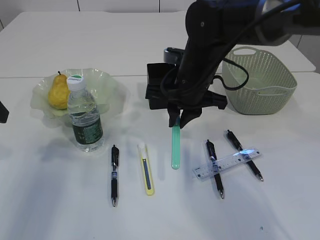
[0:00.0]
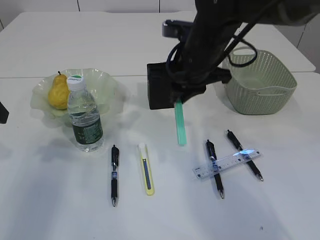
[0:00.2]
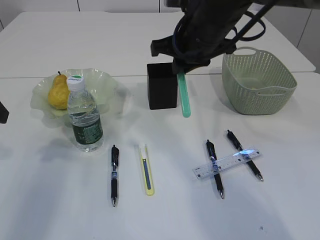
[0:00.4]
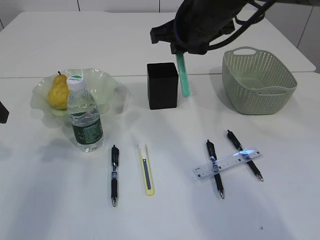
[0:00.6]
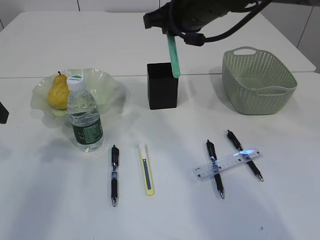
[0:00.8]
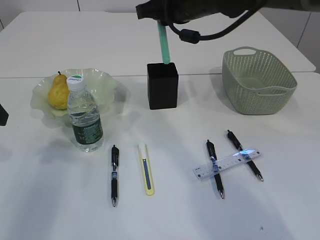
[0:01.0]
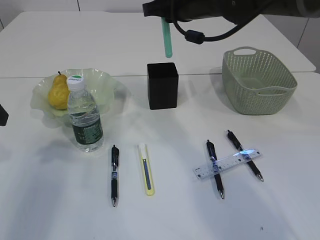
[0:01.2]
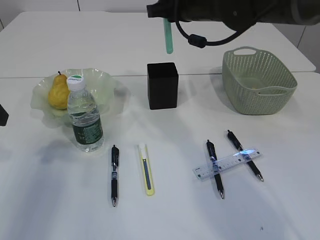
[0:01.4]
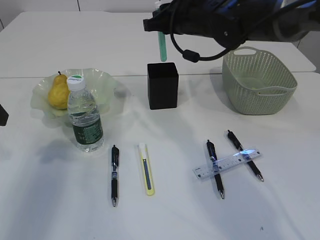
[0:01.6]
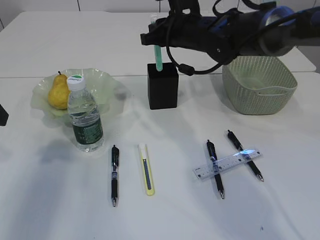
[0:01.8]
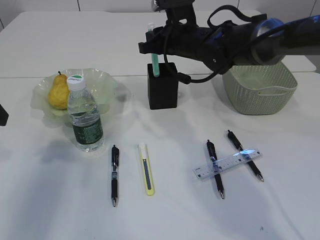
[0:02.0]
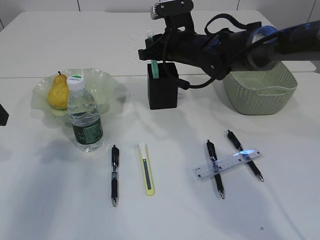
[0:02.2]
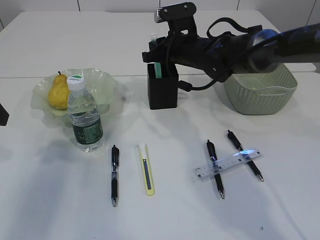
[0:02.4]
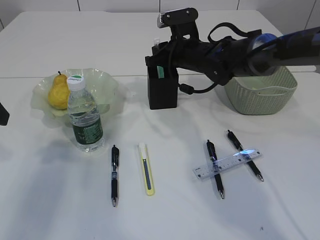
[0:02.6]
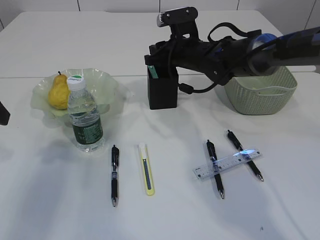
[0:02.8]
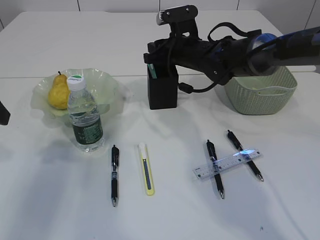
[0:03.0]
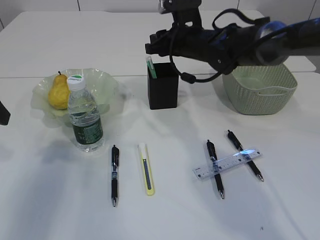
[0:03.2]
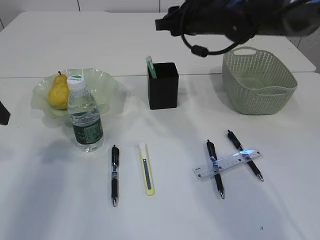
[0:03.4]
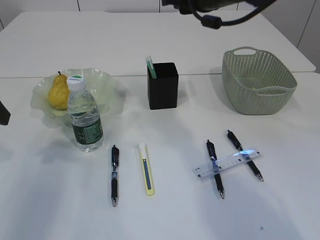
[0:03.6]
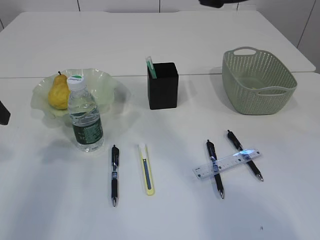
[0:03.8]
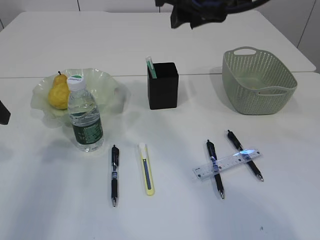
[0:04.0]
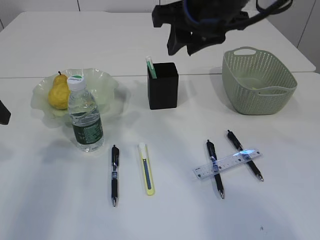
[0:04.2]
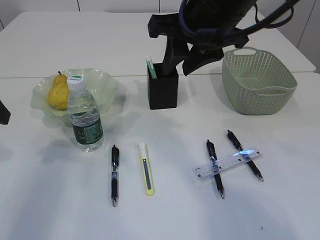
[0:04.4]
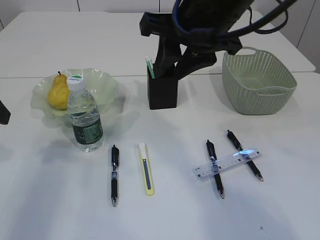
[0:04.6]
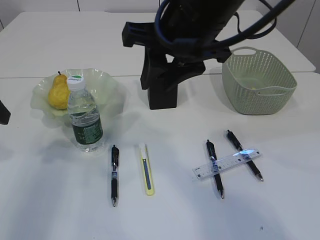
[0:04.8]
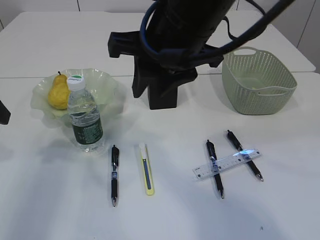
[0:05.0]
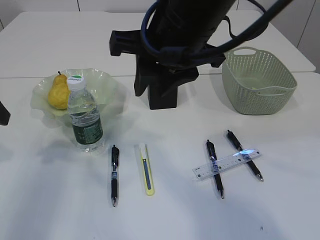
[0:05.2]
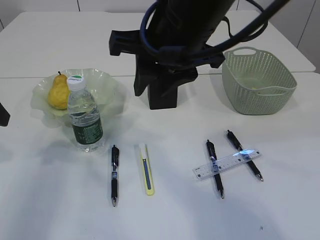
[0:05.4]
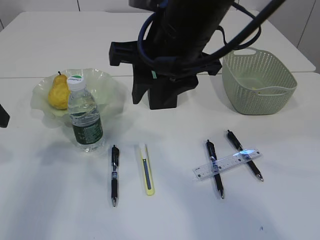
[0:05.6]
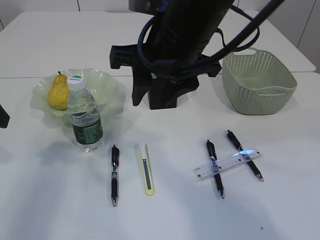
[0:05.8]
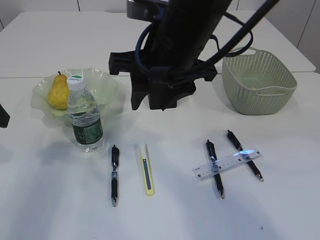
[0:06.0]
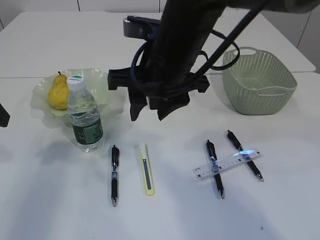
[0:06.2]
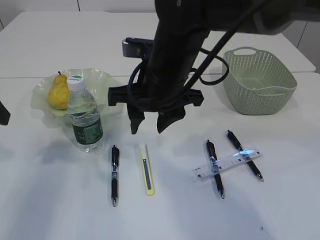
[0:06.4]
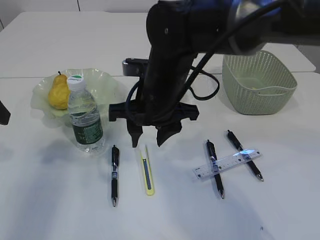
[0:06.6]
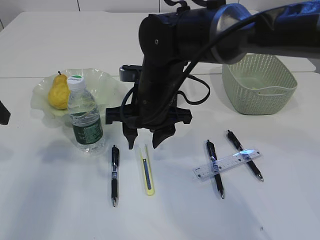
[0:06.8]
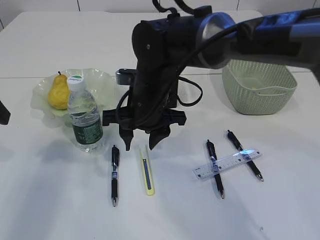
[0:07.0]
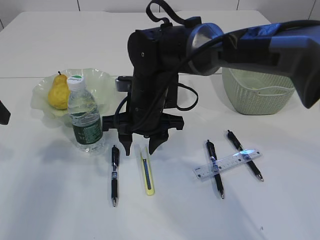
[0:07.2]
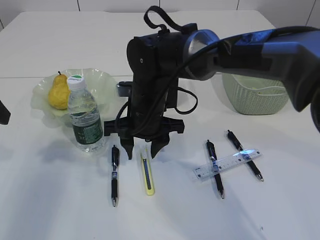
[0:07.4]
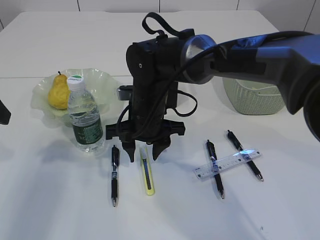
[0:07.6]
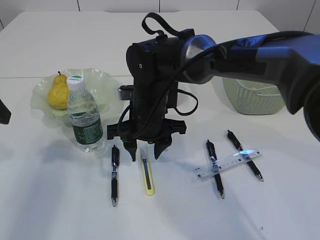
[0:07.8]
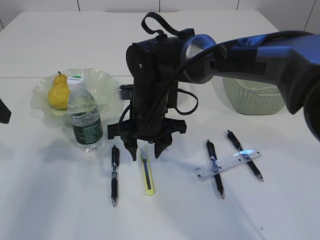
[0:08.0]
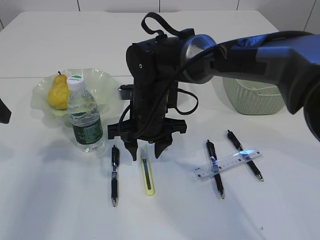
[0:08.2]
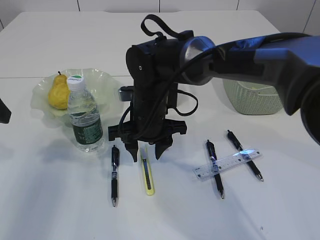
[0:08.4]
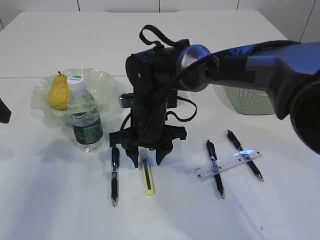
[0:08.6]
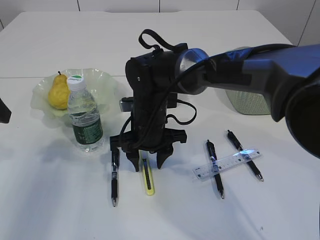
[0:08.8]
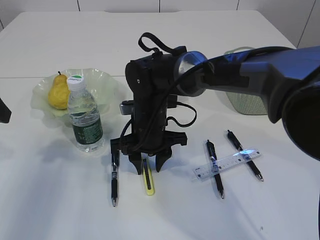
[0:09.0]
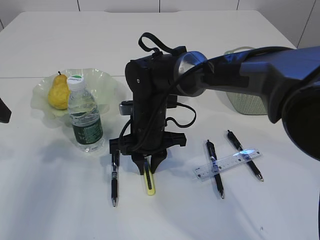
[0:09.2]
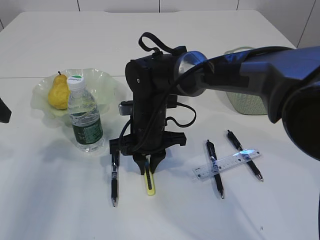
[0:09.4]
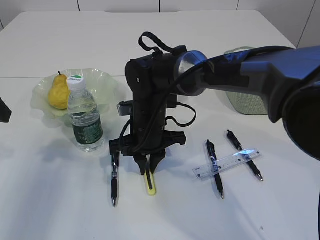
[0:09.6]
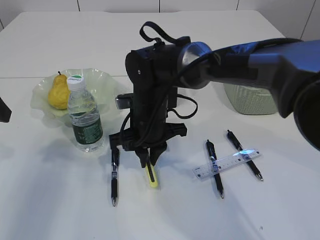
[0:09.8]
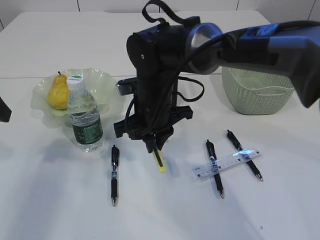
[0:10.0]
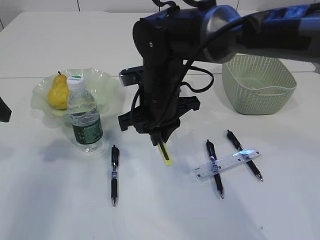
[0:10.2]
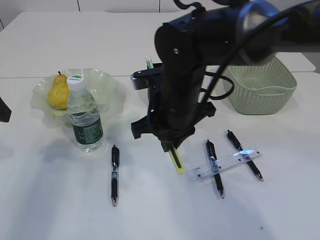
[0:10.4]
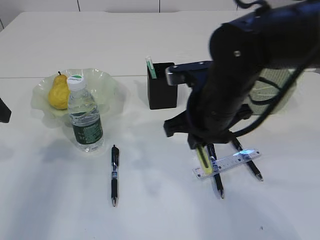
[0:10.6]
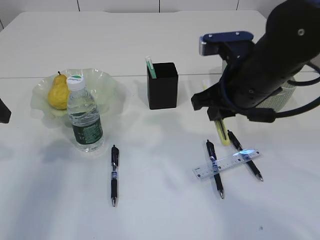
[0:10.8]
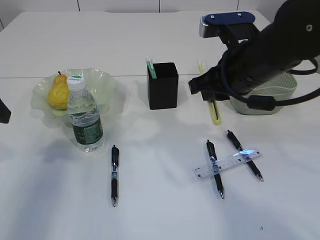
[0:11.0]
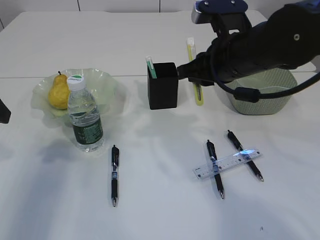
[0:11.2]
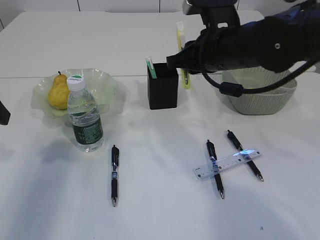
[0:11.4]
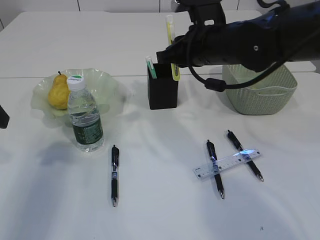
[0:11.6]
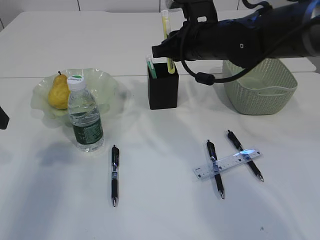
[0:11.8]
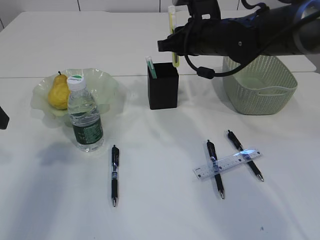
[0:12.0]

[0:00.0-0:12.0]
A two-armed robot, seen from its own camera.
Step, 0:00.2 to 0:03.2: Place the blue knife into the pen holder.
Step, 0:03.4 to 0:10.2: pick up the yellow knife.
0:00.0 to 0:01.6: The right gripper moves forward and upward, some 10 cm.
0:01.6 to 0:03.0: The right gripper shifts about 10 cm downward.
0:03.0 to 0:04.4: The right gripper goes some 20 cm backward and upward.
0:04.4 to 0:06.0: The right gripper goes approximately 5 cm to the left.
0:06.0 to 0:07.6: The right gripper moves downward, some 15 cm.
0:07.6 to 0:09.0: The grippers make only small movements.
0:09.0 to 0:10.4: The right gripper shifts about 10 cm upward, and closes its fingers.
0:10.4 to 0:12.0: The right gripper heads forward and to the right, covering roughly 15 cm.

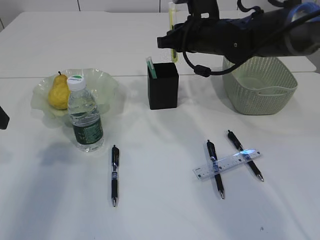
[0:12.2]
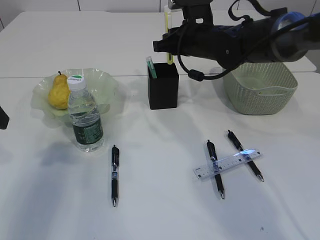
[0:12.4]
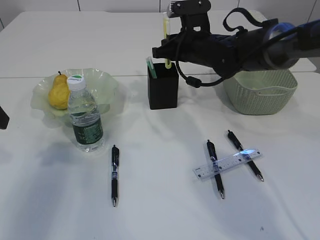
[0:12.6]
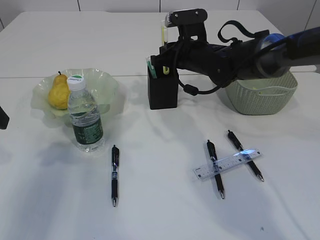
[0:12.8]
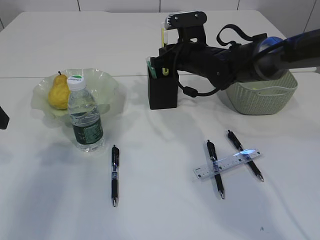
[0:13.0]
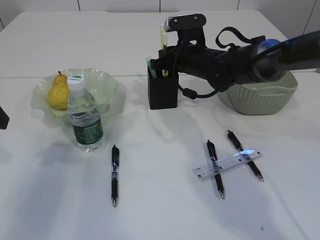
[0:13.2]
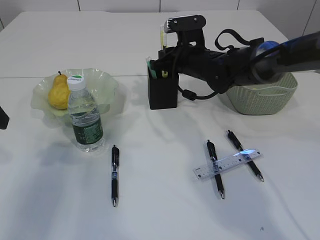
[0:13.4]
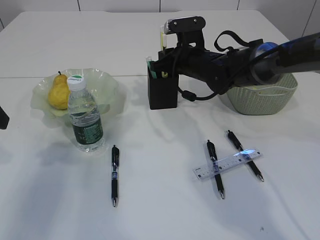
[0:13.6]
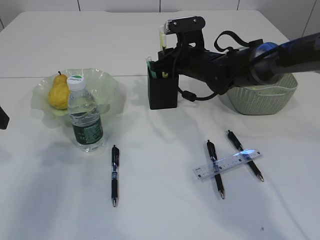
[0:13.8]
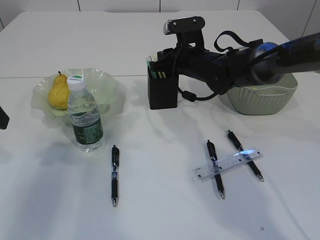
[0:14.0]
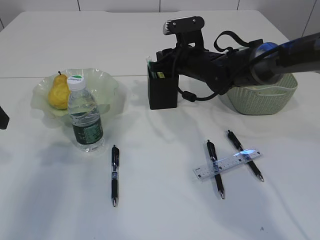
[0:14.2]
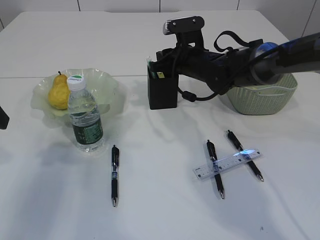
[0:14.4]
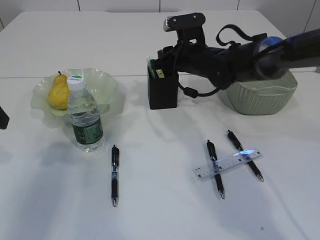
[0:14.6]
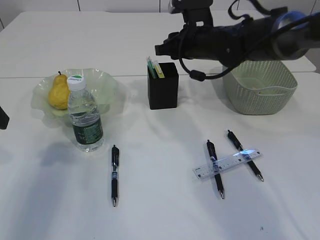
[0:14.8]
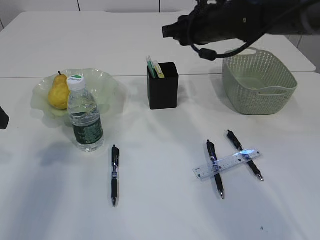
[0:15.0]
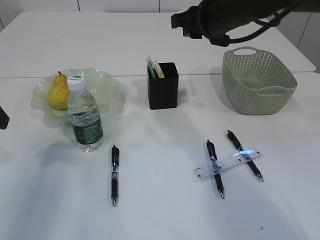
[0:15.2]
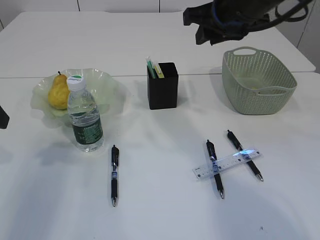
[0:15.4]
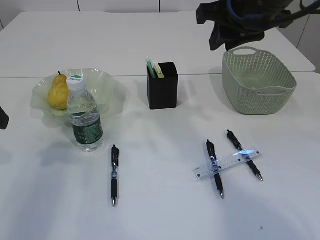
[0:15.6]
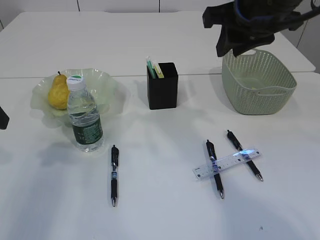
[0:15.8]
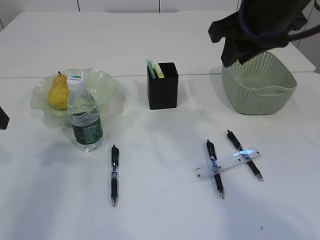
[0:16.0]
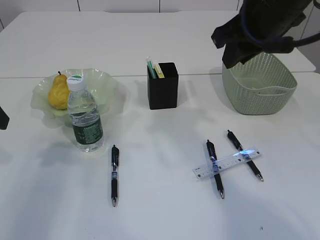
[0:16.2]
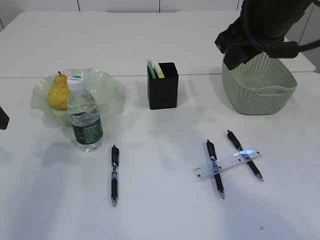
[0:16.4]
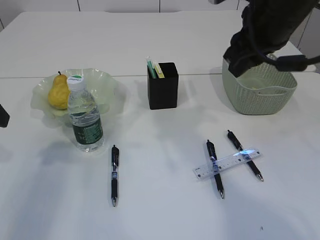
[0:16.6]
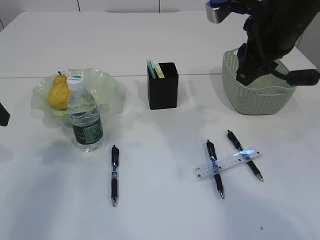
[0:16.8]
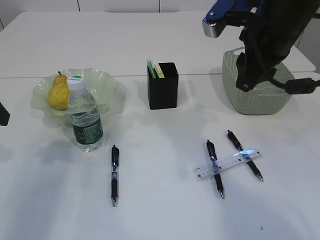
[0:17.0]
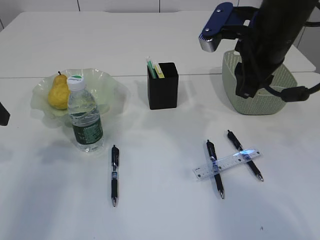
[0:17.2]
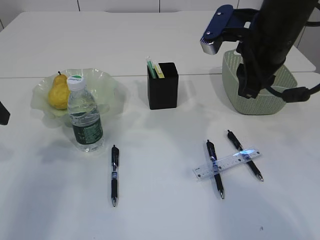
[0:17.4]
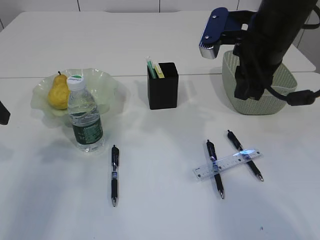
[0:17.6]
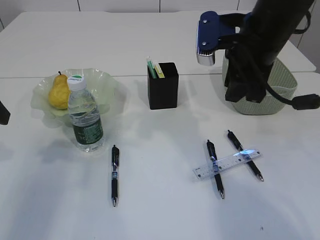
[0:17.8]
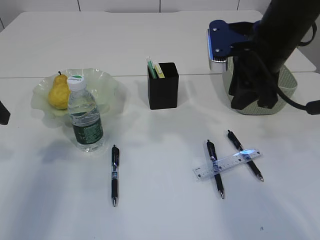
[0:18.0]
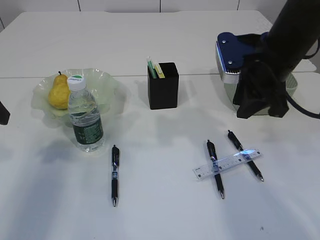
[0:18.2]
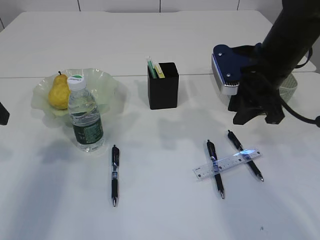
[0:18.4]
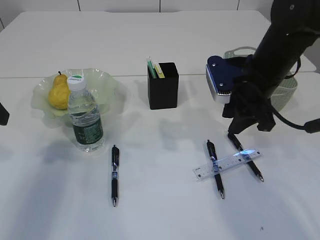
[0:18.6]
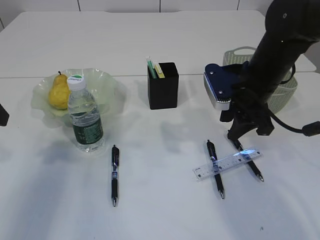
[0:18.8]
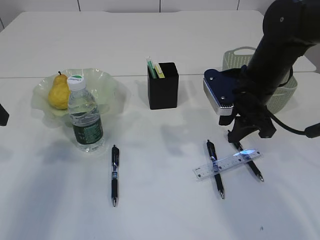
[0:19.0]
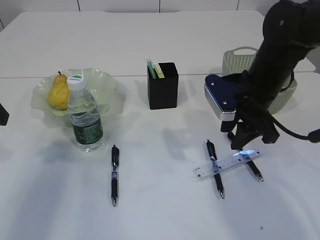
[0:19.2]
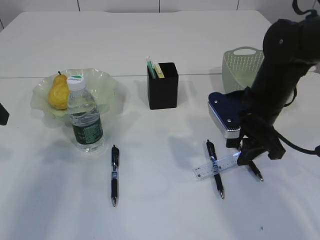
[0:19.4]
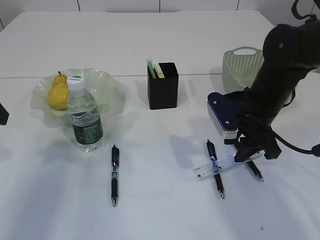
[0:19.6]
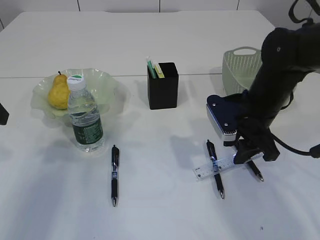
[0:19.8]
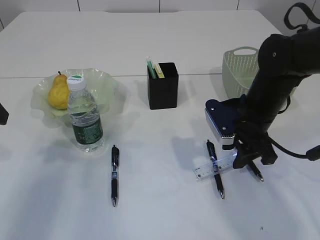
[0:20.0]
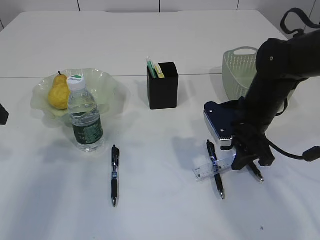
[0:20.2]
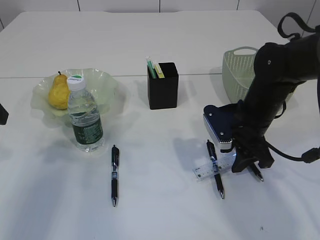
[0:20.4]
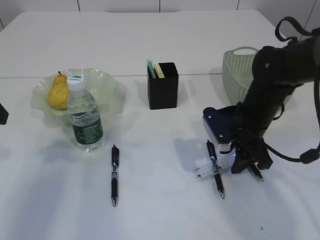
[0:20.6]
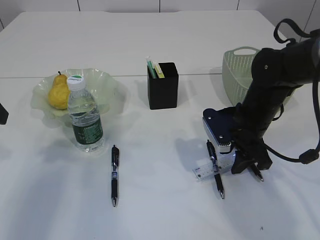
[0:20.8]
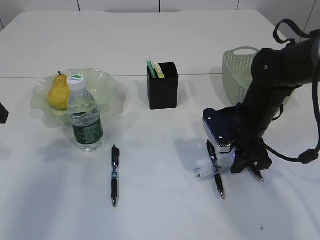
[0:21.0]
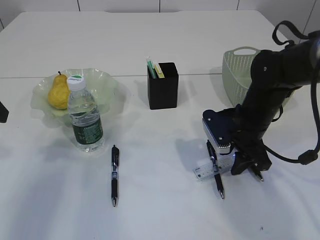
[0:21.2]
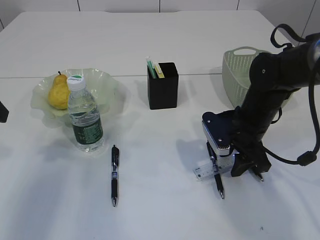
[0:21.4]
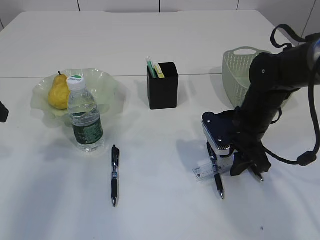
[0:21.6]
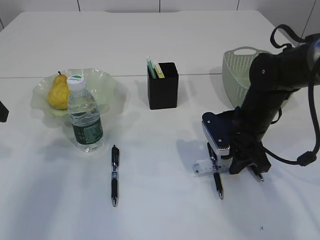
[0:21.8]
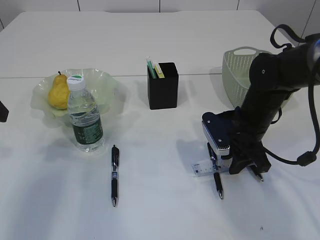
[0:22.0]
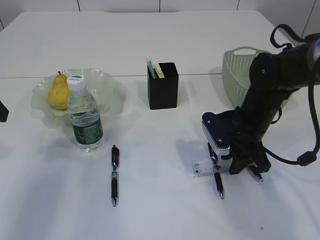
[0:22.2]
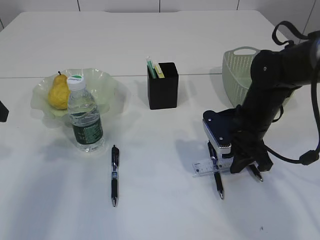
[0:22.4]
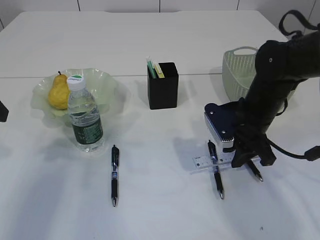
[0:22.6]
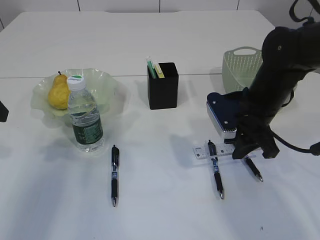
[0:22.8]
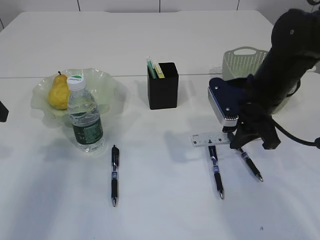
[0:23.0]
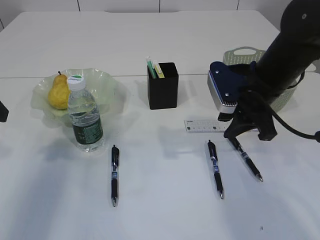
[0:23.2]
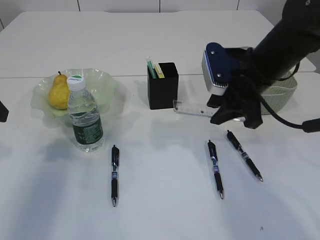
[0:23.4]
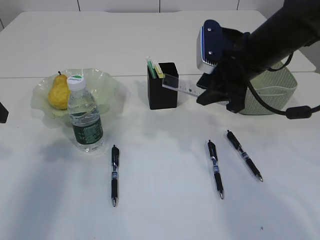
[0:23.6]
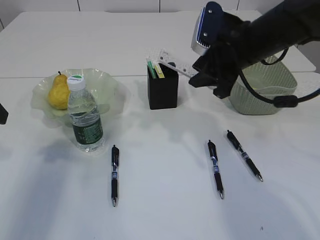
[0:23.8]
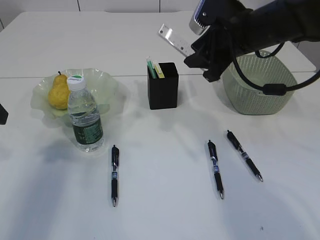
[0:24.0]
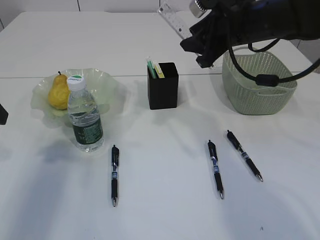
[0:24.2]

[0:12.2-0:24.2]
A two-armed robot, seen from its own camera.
Step, 0:12.2 to 0:14.8: place the yellow knife into the pen holder.
Step, 0:15.0 to 0:23.2: pick up the ruler.
0:12.2 to 0:13.8: The right gripper shifts some 5 cm downward.
0:13.8 to 0:15.2: The right gripper is displaced upward and backward by approximately 15 cm.
0:15.2 to 0:16.6: The right gripper heads backward, covering about 10 cm.
0:16.6 to 0:18.2: The right gripper shifts approximately 5 cm downward.
0:18.2 to 0:19.8: The right gripper heads downward, covering roughly 10 cm.
0:19.8 to 0:22.6: The grippers stay close to where they were, moving slightly.
0:22.6 to 0:24.2: The right gripper travels upward by approximately 15 cm.
